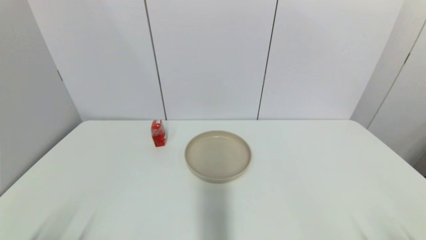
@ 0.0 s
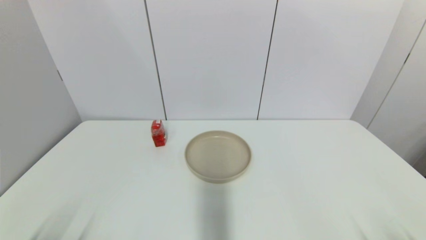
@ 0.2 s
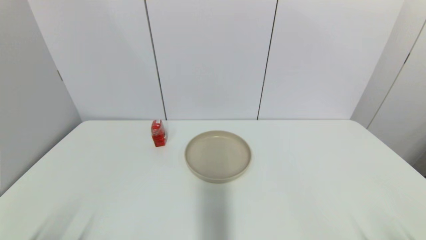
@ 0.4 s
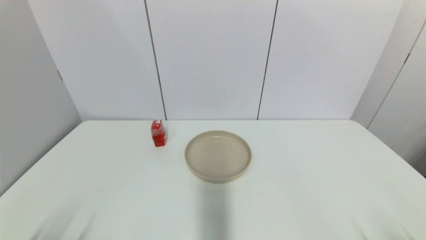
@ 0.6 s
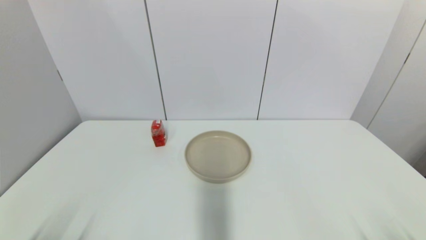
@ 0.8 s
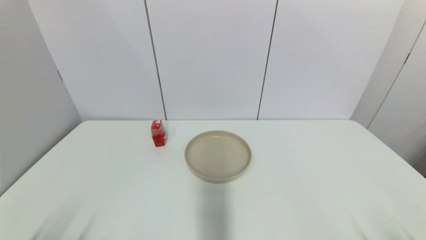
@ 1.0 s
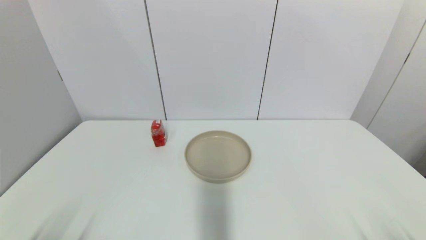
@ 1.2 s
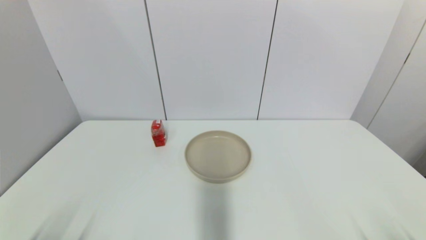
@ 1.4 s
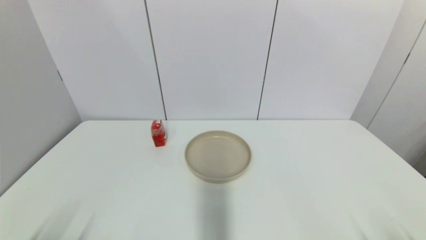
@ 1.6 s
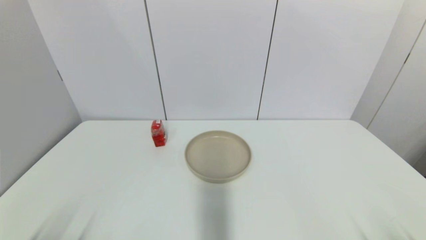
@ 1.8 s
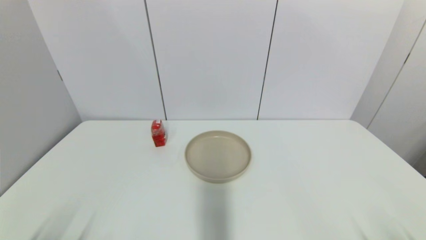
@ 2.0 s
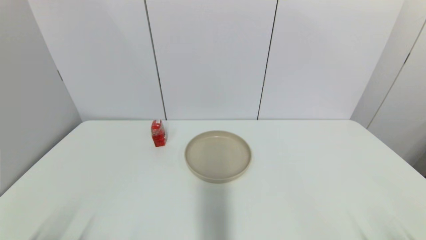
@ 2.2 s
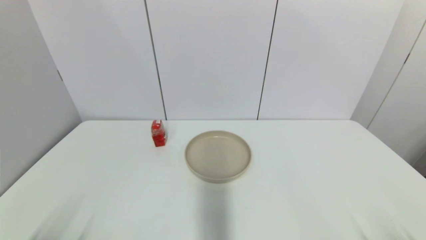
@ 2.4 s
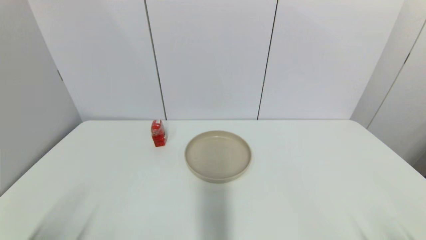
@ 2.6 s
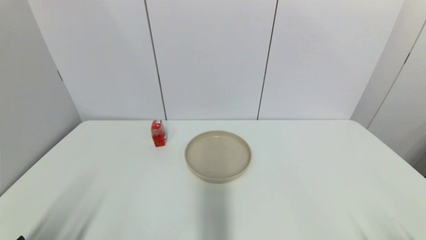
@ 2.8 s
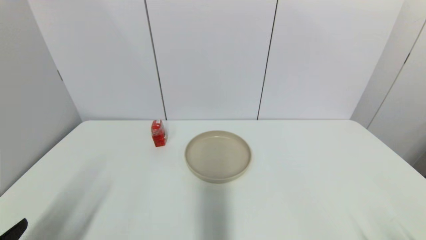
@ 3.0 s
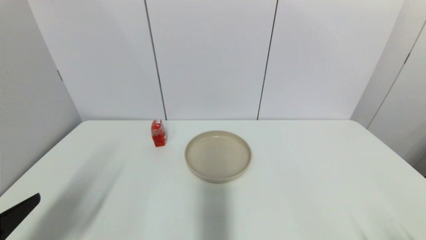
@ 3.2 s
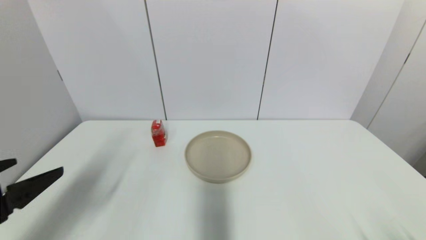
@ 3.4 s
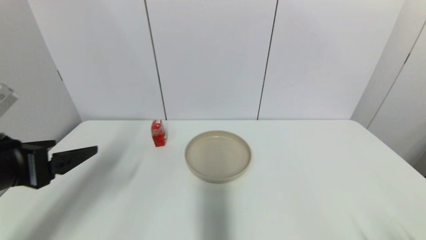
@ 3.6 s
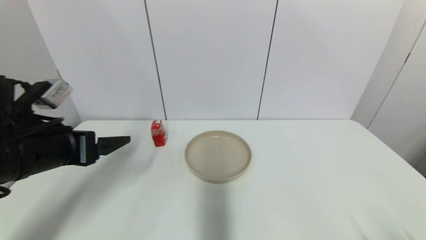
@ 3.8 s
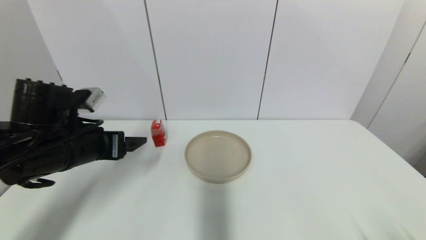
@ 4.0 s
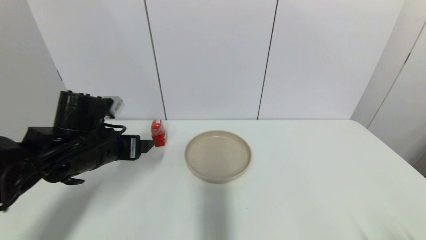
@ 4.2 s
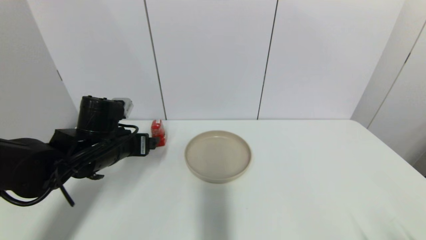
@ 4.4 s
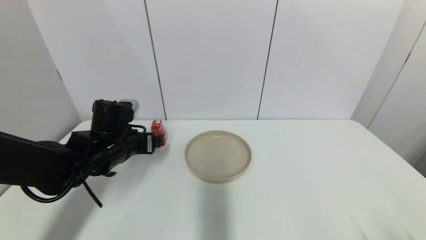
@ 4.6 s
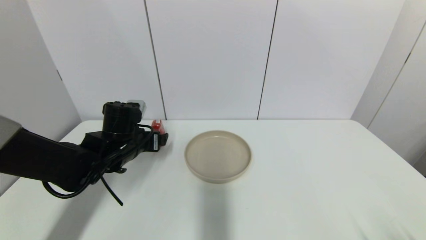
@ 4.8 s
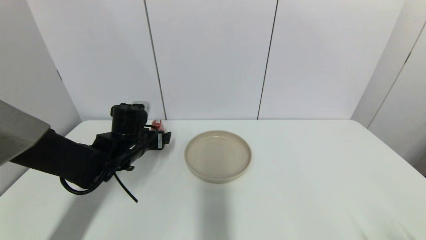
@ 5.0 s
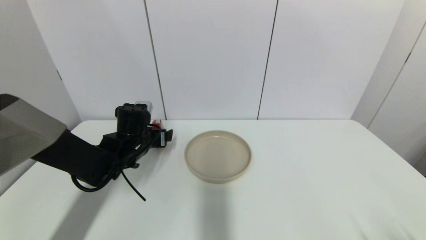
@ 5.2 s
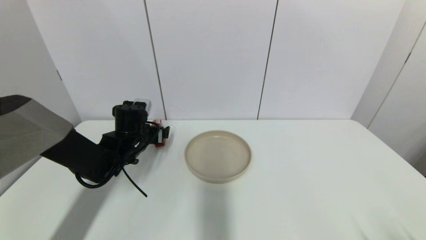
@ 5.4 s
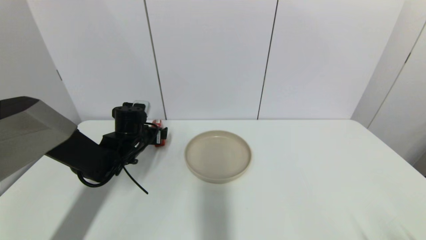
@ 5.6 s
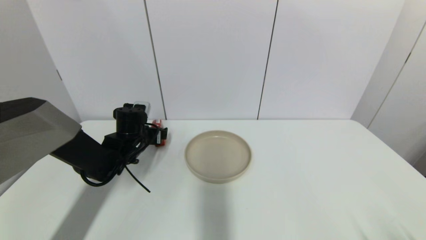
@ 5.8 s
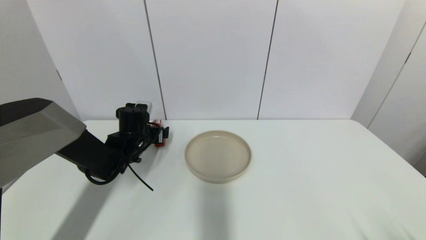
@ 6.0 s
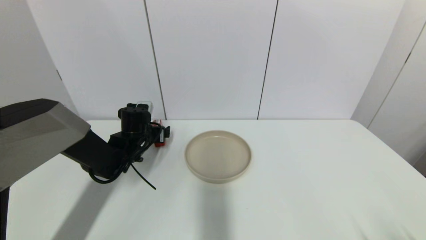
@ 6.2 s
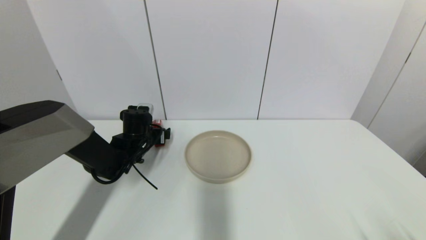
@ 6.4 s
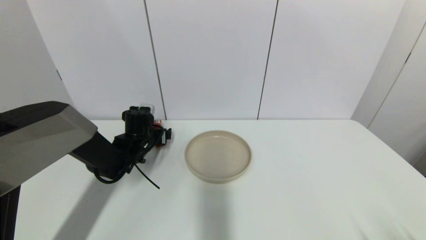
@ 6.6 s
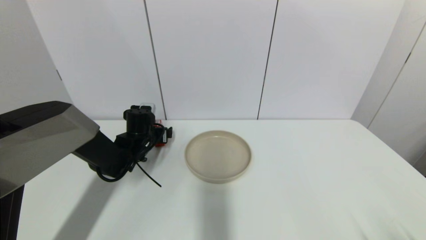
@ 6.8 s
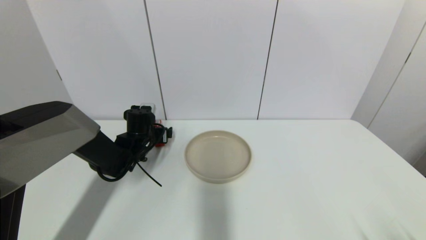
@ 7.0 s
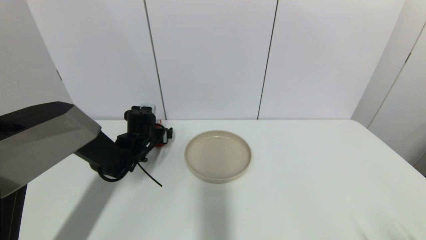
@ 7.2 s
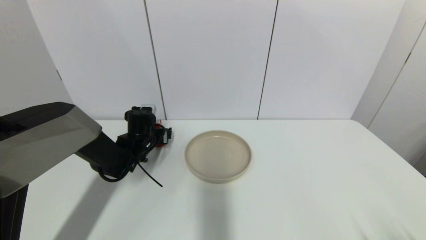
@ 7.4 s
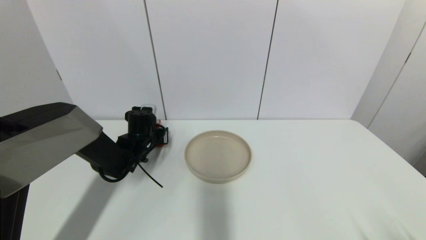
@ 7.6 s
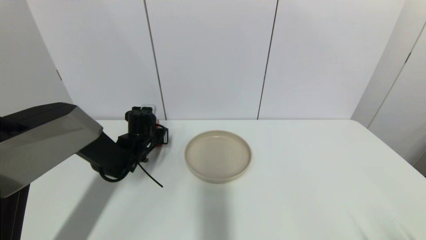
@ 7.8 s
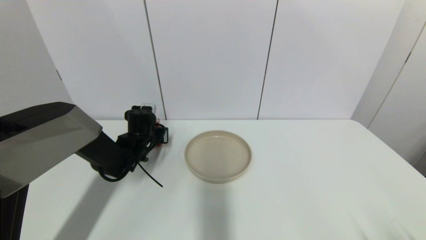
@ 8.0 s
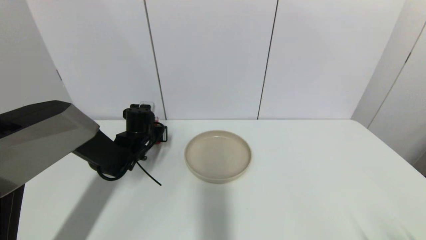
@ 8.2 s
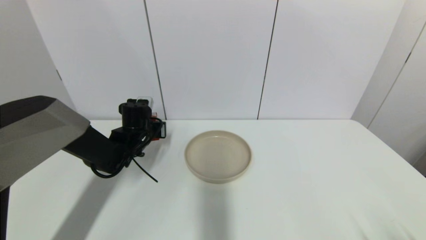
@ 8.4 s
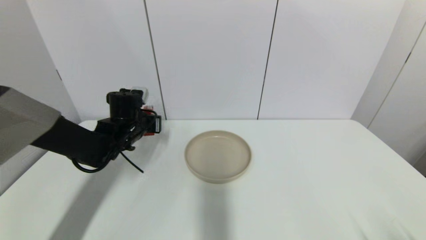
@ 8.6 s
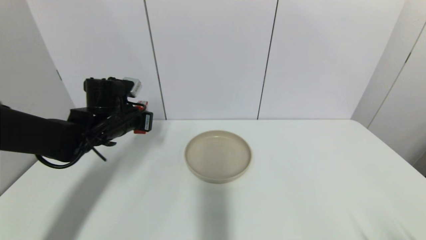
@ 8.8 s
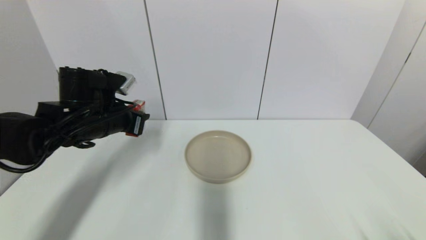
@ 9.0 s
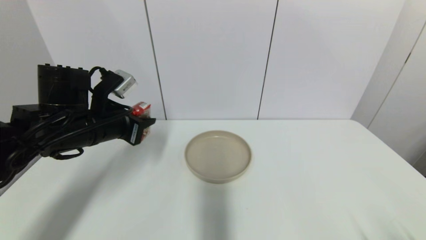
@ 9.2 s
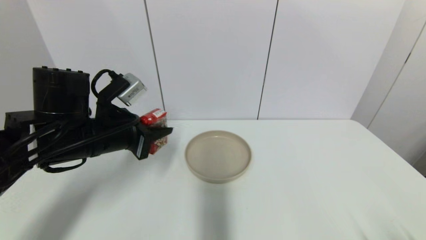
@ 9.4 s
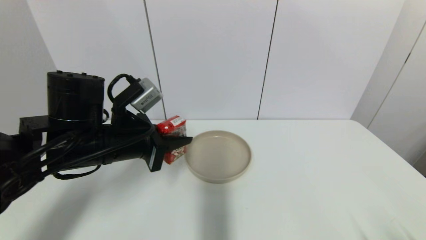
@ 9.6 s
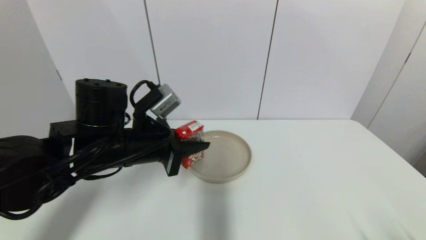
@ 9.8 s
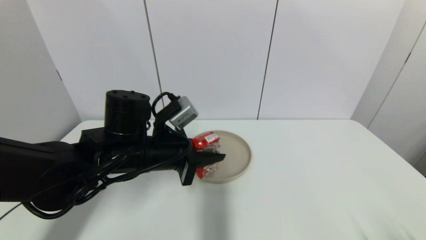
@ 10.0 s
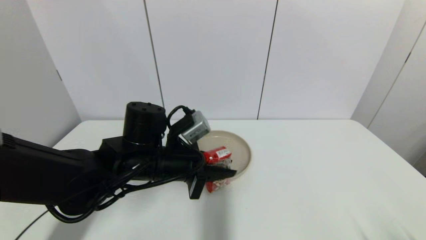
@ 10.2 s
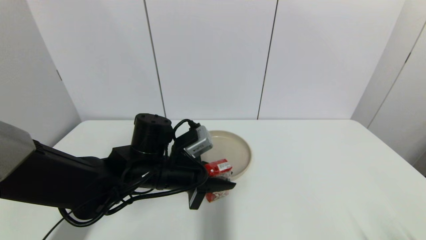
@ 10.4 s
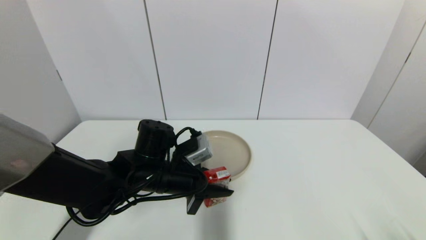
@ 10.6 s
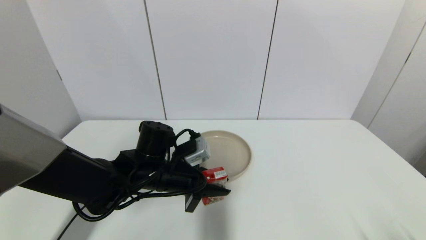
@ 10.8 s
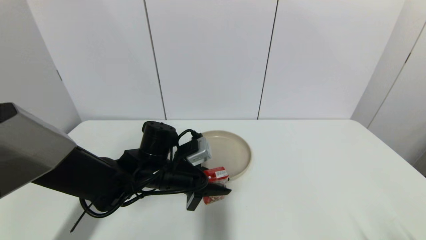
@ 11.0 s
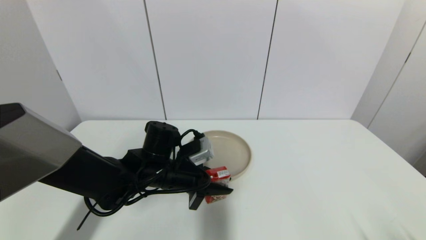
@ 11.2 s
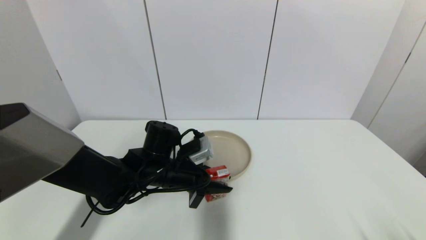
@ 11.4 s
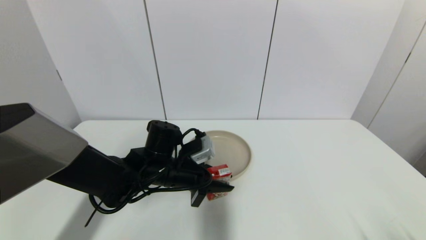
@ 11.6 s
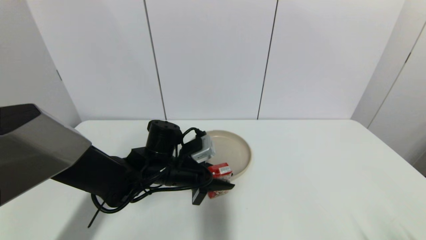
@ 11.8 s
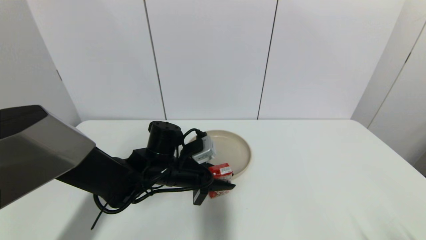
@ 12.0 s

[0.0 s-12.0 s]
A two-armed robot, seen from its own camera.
Step, 2.8 to 8.0 s: Grasp the wangzai milk with left gripper.
0.0 to 1.6 s: Neither gripper changes place.
1.6 to 3.0 s: The left gripper moves upward, roughly 10 cm.
3.0 to 4.4 s: The left gripper shifts about 30 cm forward and to the right.
4.4 to 6.0 s: The left gripper is displaced forward and downward by some 10 cm.
6.0 to 7.6 s: The left gripper closes up.
7.6 to 9.0 s: The left gripper is displaced upward and backward by roughly 15 cm, and closes.
9.0 to 10.4 s: The left gripper moves to the right and downward, some 15 cm.
10.4 to 12.0 s: The left gripper shifts by about 5 cm.

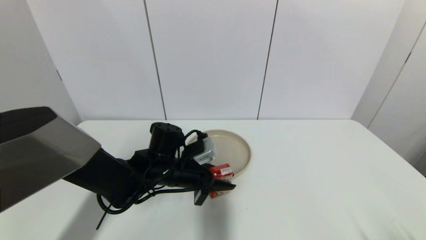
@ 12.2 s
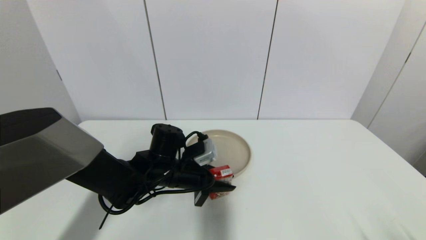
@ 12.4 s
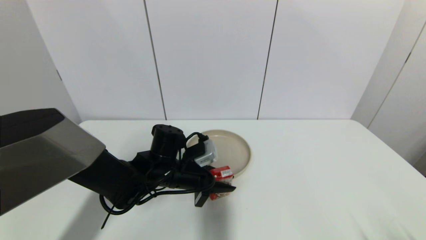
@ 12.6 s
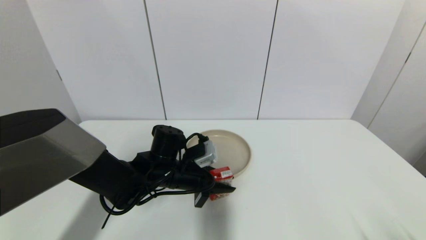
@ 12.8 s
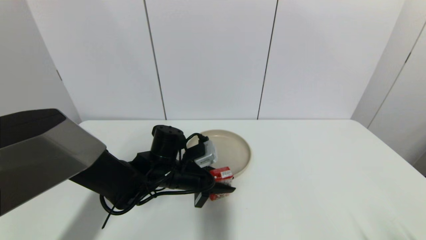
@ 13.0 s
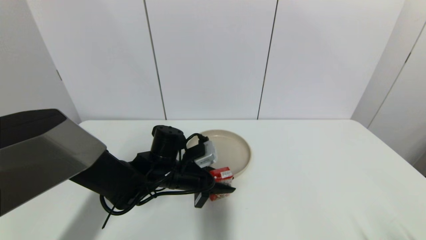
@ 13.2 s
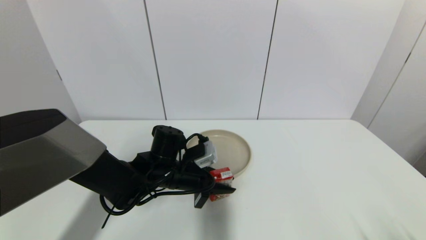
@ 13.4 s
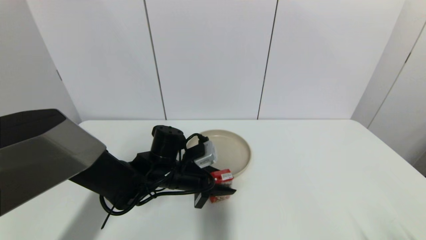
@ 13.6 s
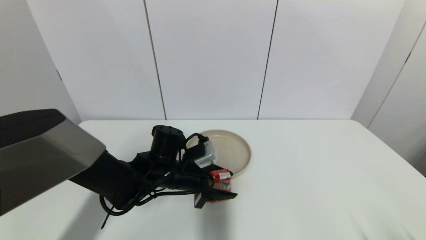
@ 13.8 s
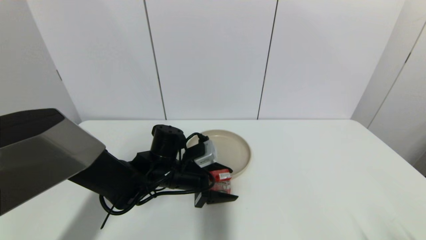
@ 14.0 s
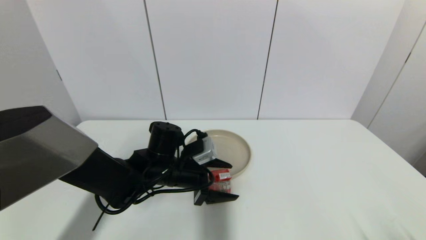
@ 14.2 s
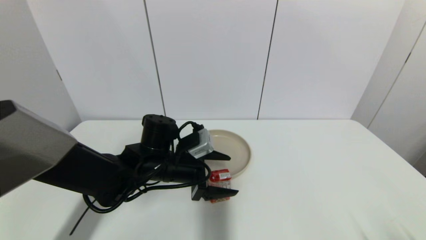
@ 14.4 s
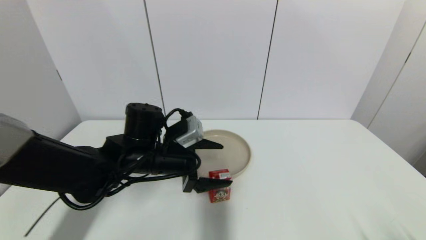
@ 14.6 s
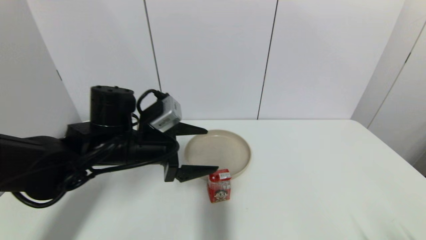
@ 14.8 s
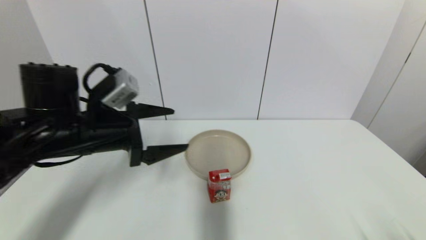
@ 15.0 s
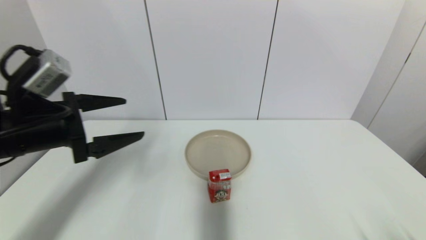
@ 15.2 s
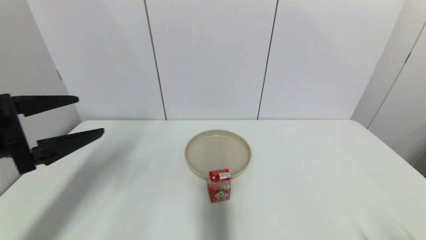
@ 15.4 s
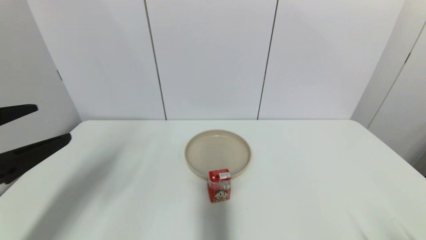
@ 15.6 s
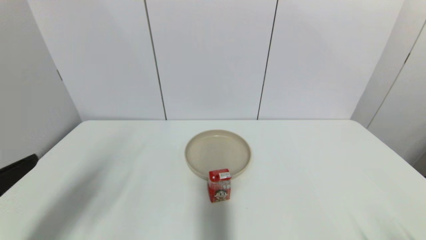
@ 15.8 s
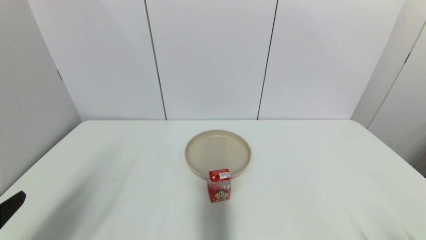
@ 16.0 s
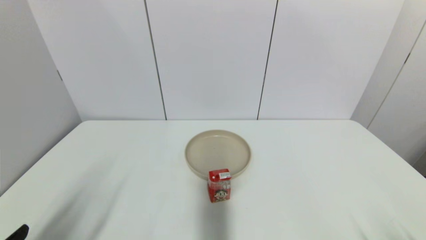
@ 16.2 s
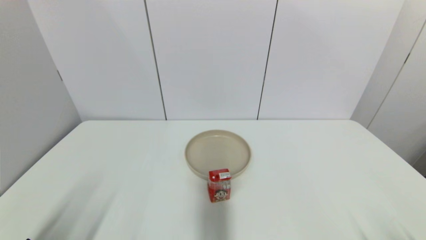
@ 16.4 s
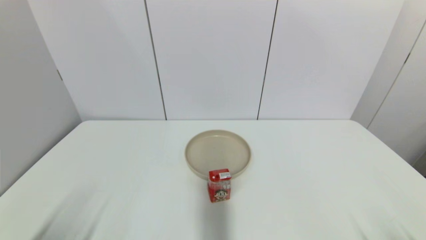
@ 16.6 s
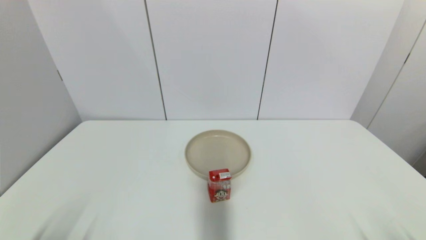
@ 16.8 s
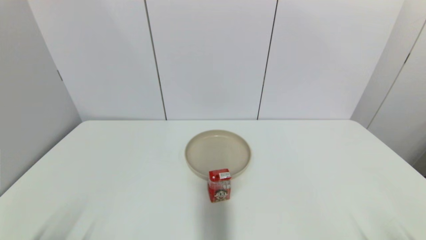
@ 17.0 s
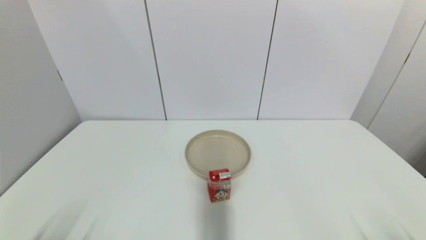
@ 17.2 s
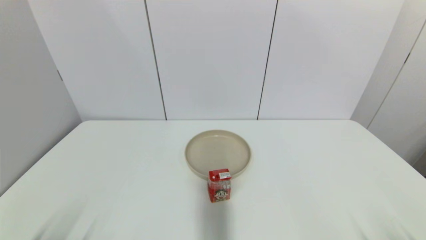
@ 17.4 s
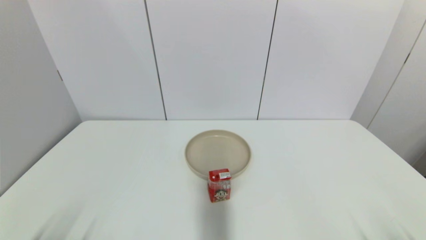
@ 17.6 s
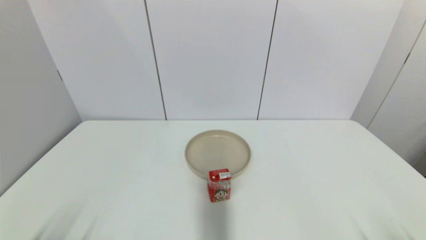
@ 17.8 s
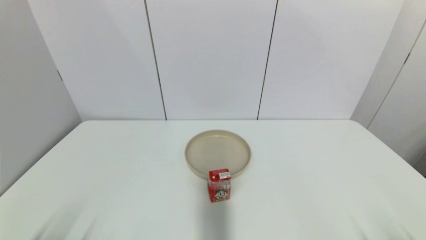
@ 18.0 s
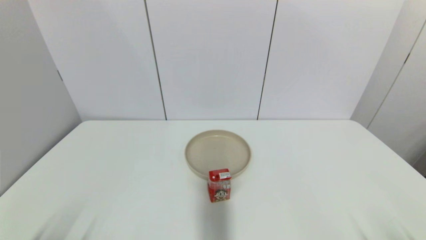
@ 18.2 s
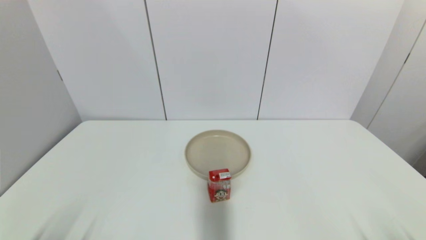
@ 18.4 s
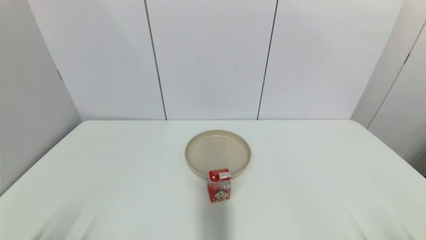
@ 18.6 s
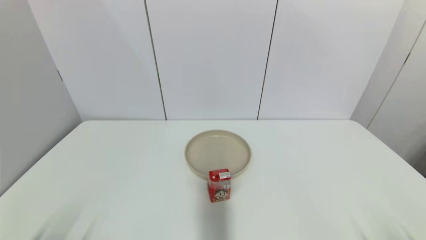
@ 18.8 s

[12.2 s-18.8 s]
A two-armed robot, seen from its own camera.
12.2 to 13.8 s: The left gripper opens up.
13.8 to 15.4 s: The left gripper travels to the left, upward and backward by approximately 30 cm, and opens up.
15.4 to 17.2 s: The left gripper moves downward and backward, roughly 25 cm.
17.2 to 18.8 s: Both grippers stay about where they are.
